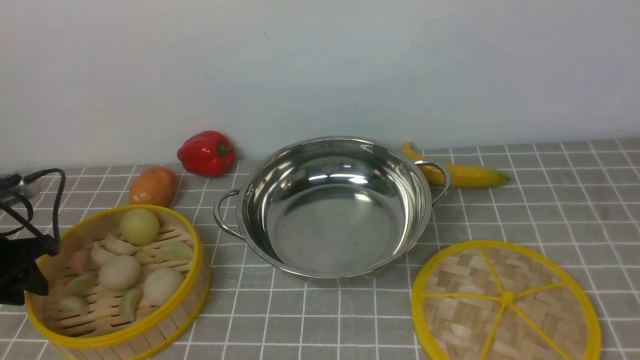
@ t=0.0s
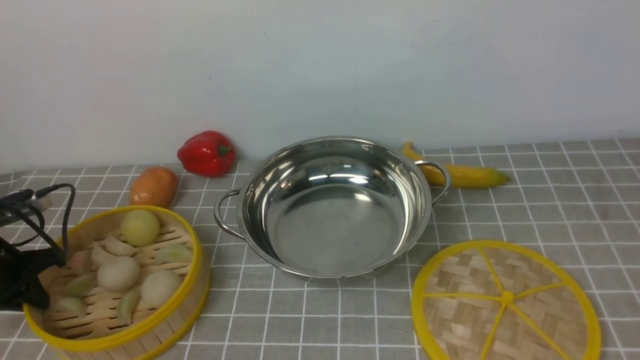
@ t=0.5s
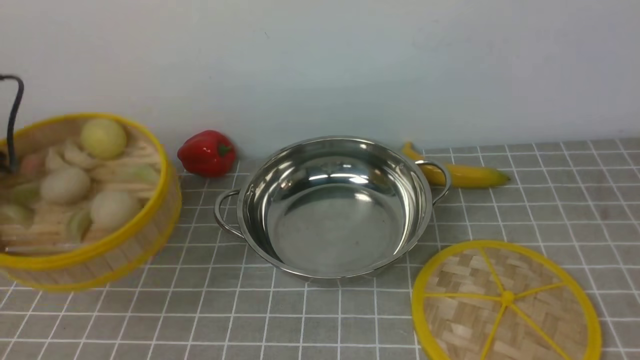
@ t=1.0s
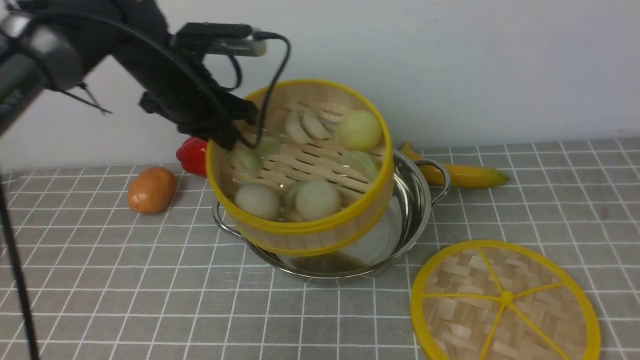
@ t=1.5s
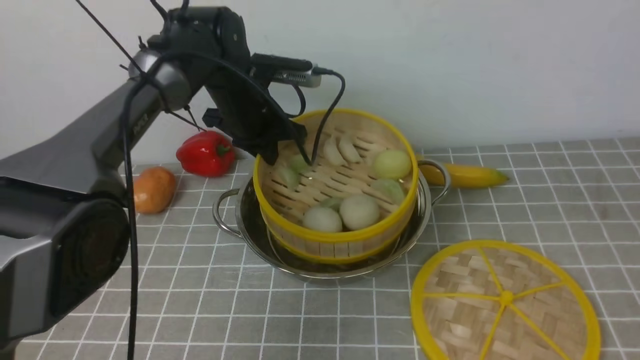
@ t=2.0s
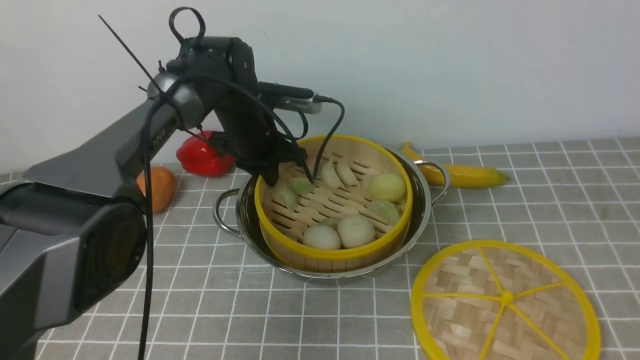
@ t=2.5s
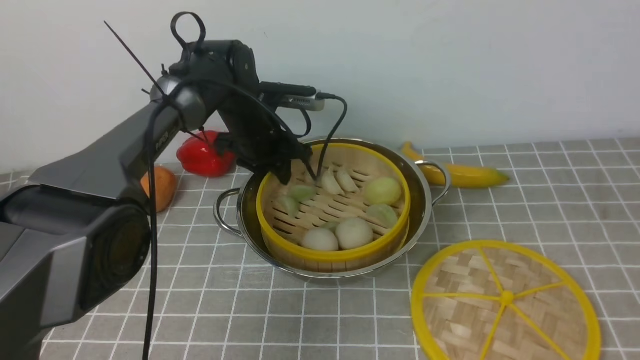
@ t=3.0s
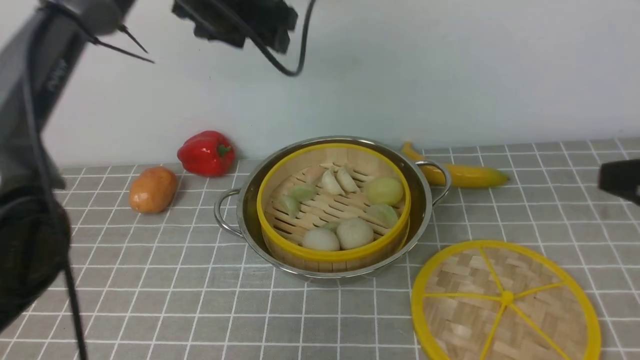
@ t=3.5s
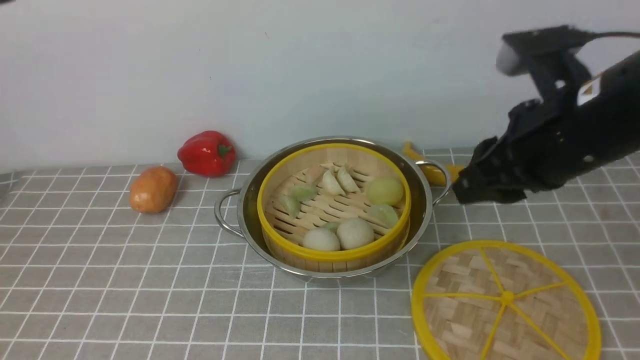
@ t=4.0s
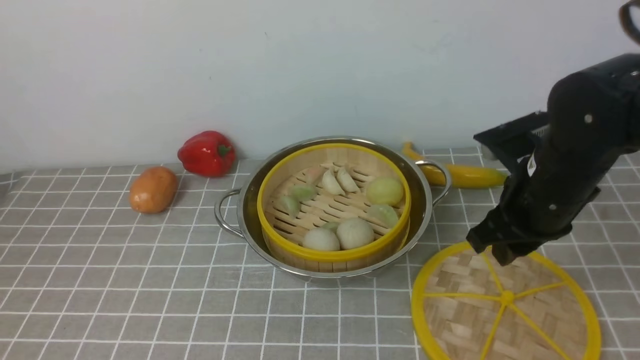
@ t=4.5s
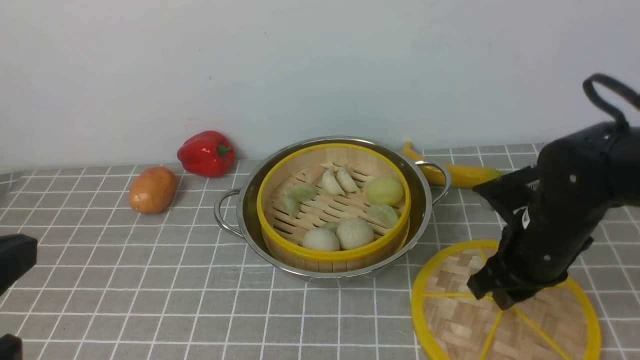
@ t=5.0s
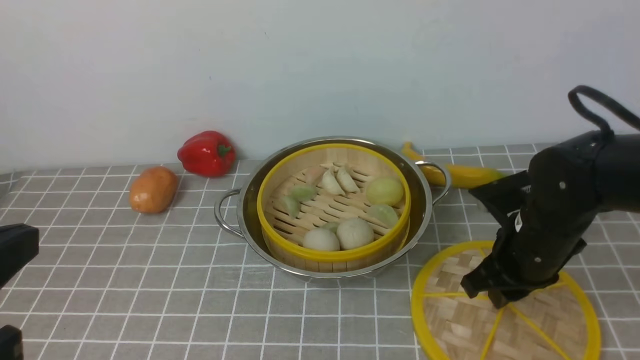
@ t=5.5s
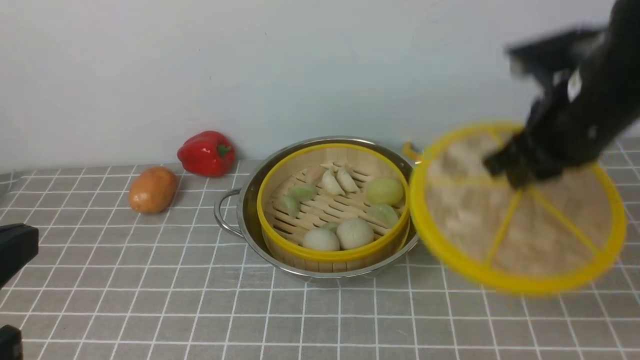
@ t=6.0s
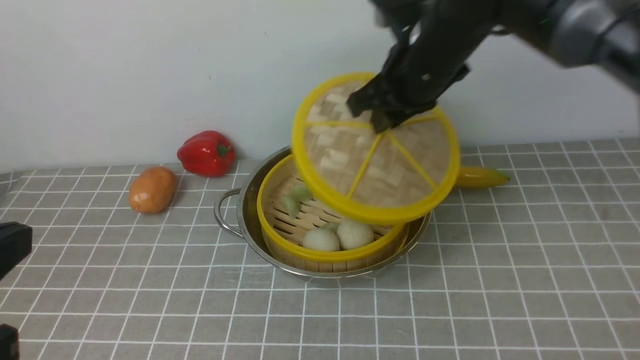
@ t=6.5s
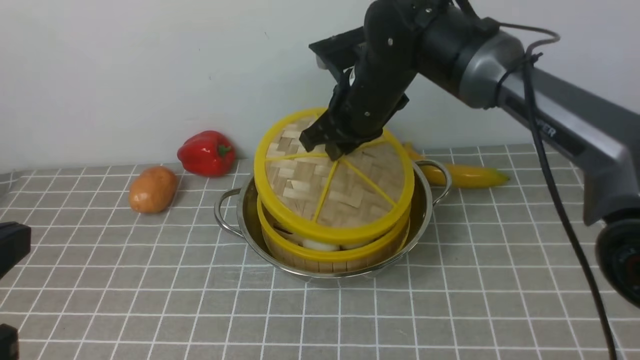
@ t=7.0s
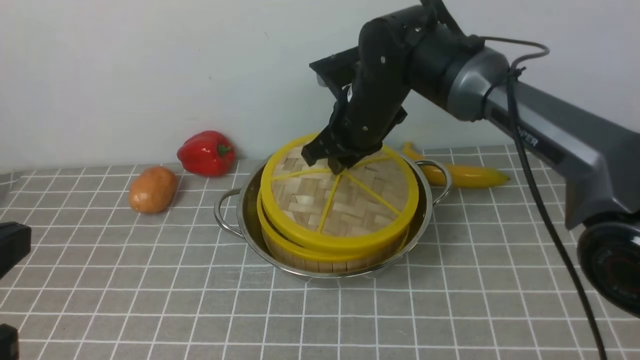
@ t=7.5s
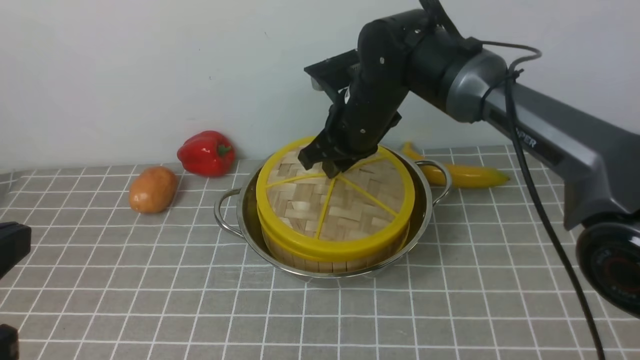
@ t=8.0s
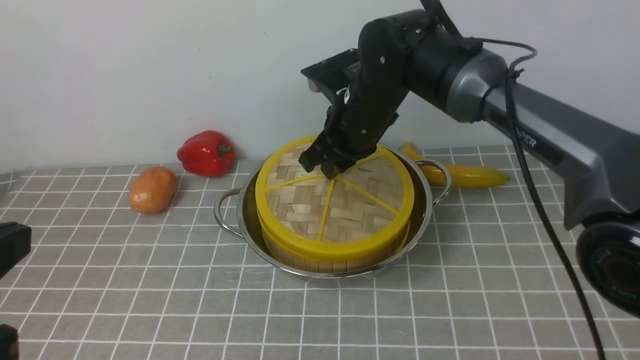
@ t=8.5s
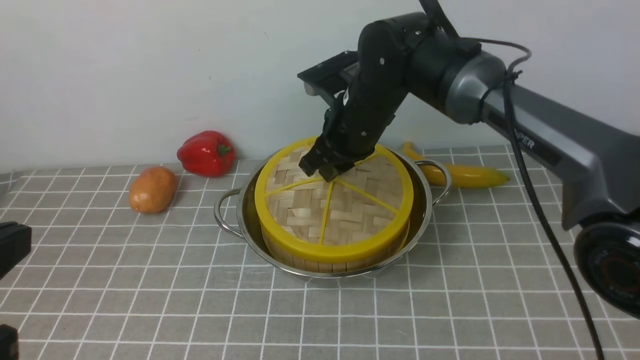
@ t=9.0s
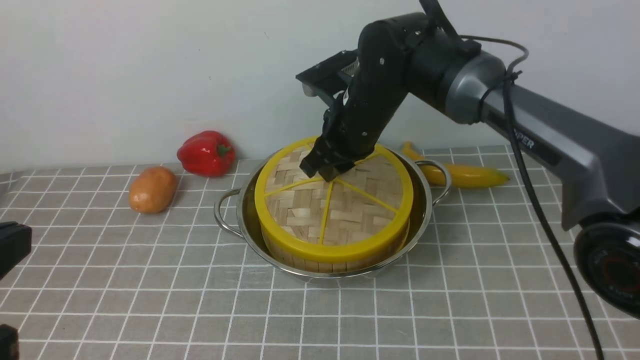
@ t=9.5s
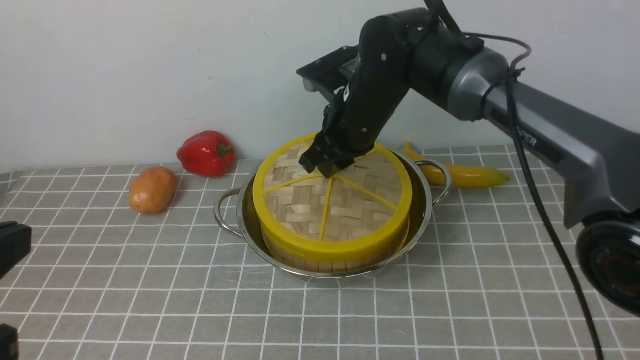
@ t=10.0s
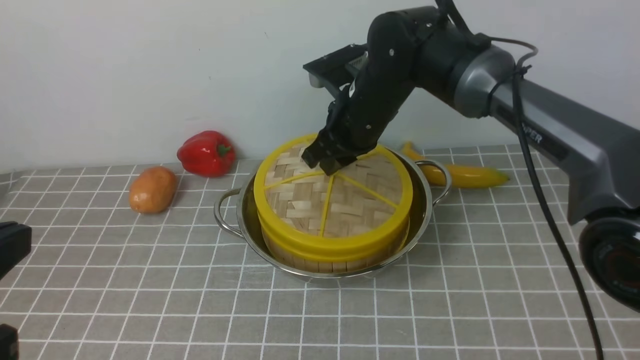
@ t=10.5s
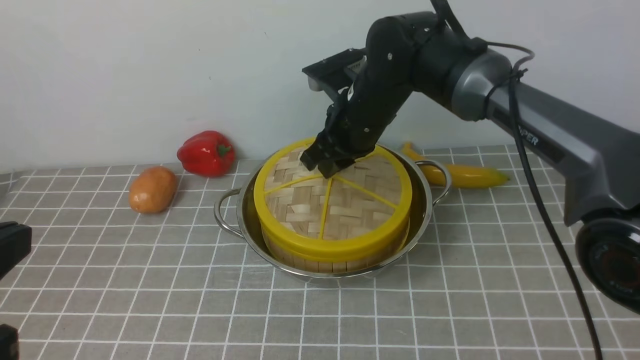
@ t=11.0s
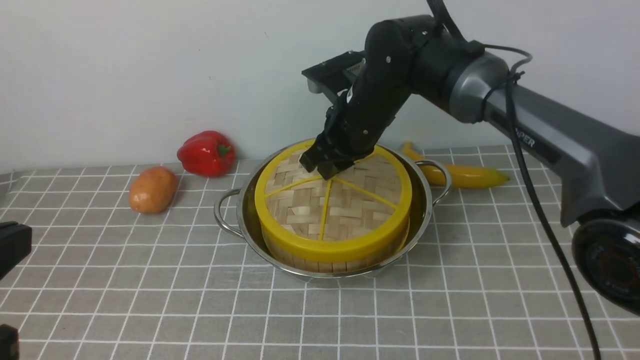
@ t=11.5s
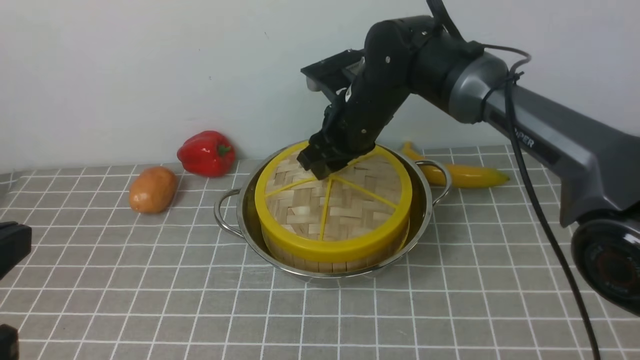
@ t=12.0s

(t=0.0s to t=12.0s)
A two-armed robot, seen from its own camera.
Task of the whole recording: place the steamer in the pot on the grey tablecloth, and put the lid on the steamer.
Step, t=1.0s - t=3.0s: use the left arm to put the steamer into the iron steamer pot in the middle.
Step, t=3.5s - t=5.5s: use the right arm to lift the lid of the steamer.
t=0.0s - t=2.0s: The left gripper shifts roughly 35 cm to the right and forward, and closes its fingers.
t=2.0s - t=4.0s: The right gripper heads forward and to the left, covering about 15 cm; the left gripper moves upward and backward, some 40 cm, and opens, then closes once more.
t=4.0s - t=6.0s: The left gripper shifts roughly 25 cm downward and backward, while the right gripper goes downward and returns, about 15 cm each way.
t=6.0s - t=8.0s: The right gripper shifts about 20 cm to the left, forward and downward.
t=8.0s - t=10.0s: The grippers make only small movements.
t=10.0s - t=12.0s: The right gripper opens.

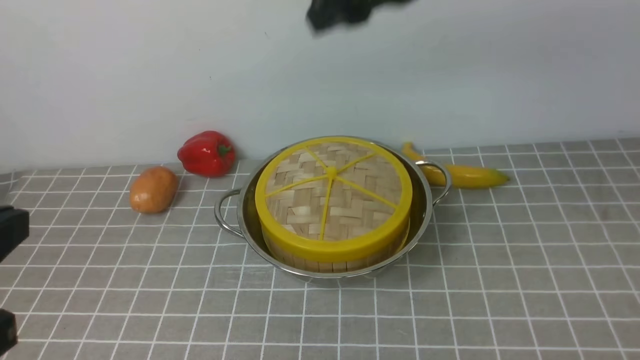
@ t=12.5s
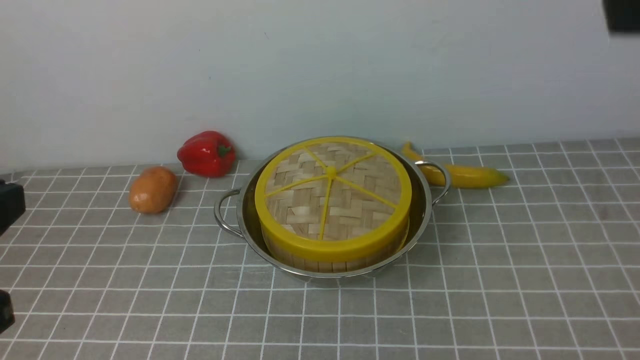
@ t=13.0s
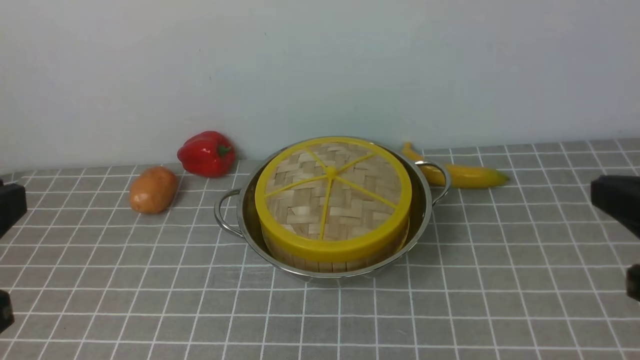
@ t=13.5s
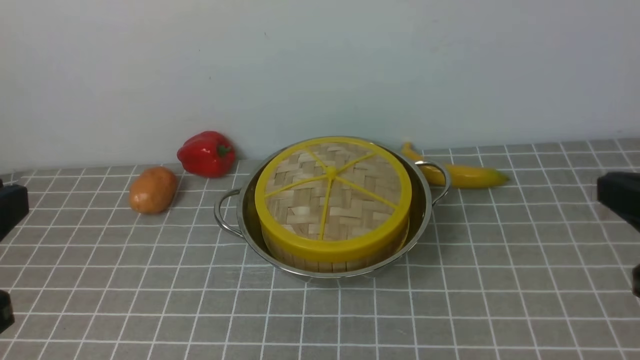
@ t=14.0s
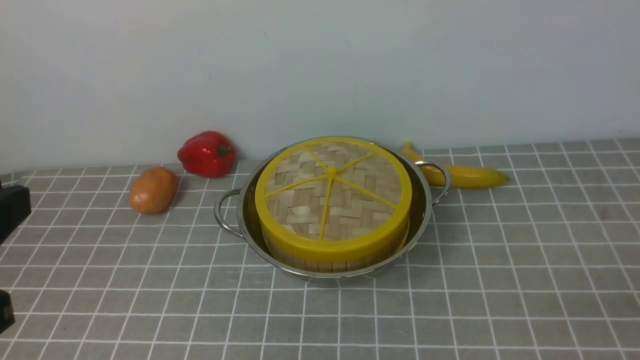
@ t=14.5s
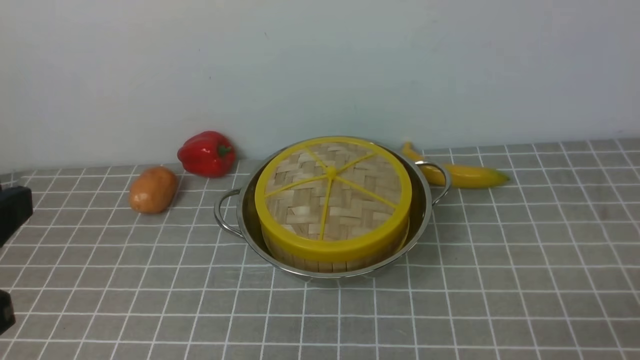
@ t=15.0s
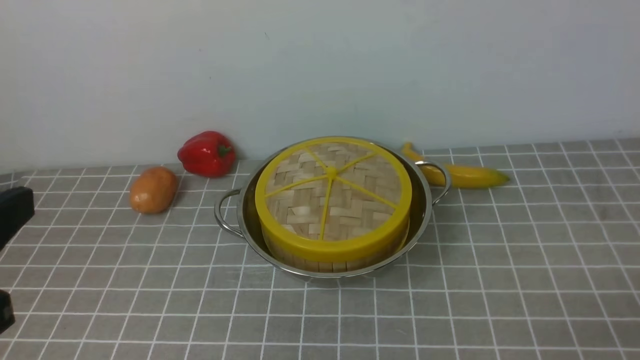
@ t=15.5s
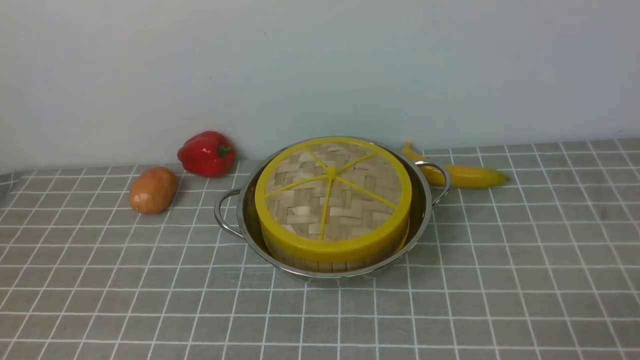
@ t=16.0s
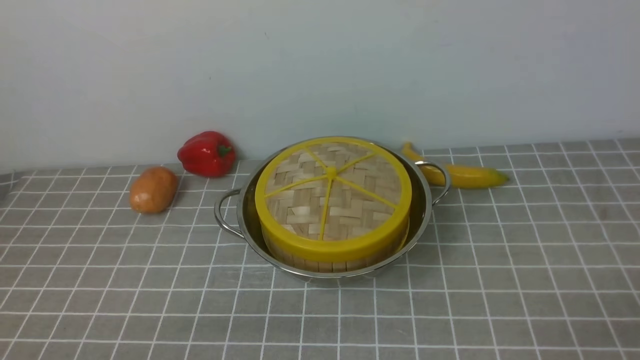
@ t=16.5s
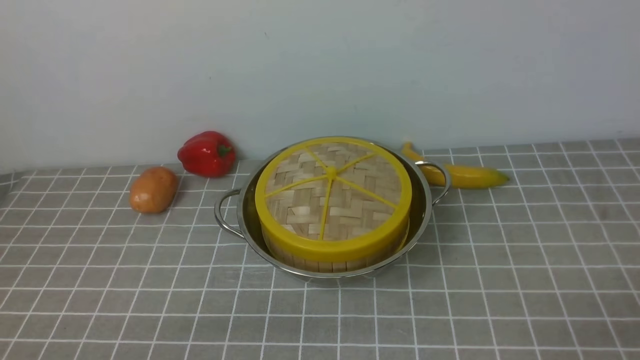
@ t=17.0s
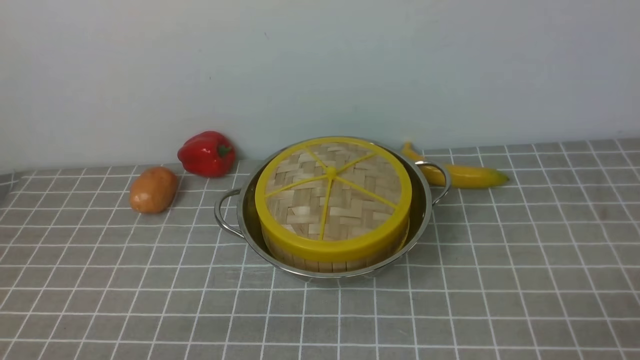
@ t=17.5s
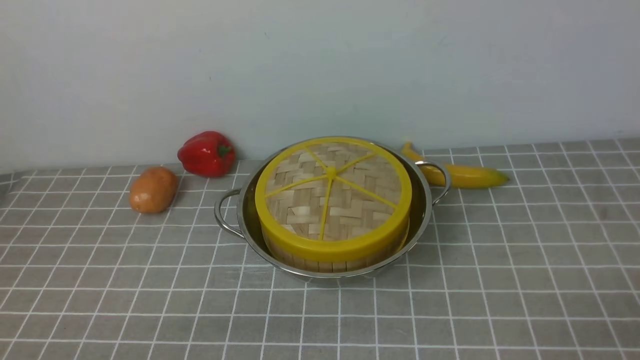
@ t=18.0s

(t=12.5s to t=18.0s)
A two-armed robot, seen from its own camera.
Task of the whole recording: place the steamer in the pot on the grey tablecloth, and put the lid on the steamer.
t=12.5s - t=14.5s: The right gripper goes roughly 40 cm backward, downward and to the right, and closes.
t=14.5s - t=16.0s: The left gripper goes approximately 10 cm downward.

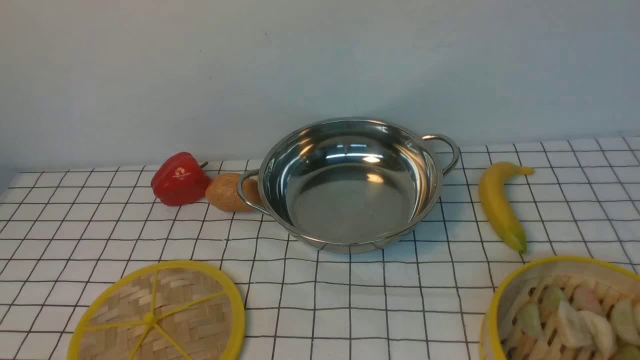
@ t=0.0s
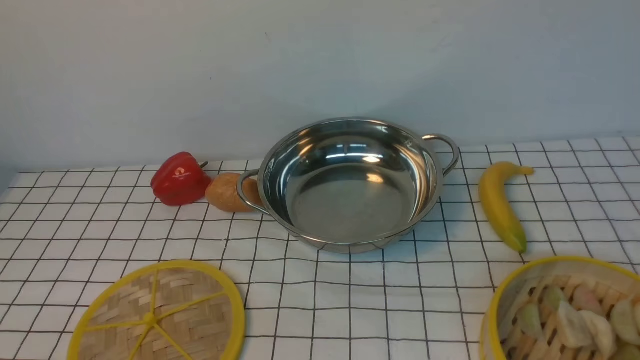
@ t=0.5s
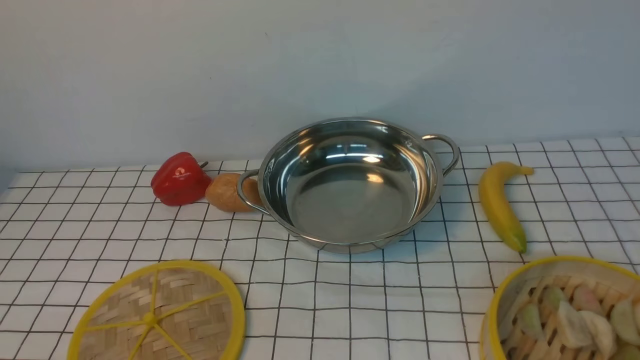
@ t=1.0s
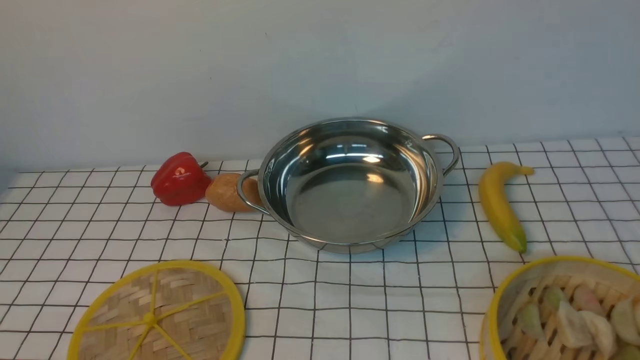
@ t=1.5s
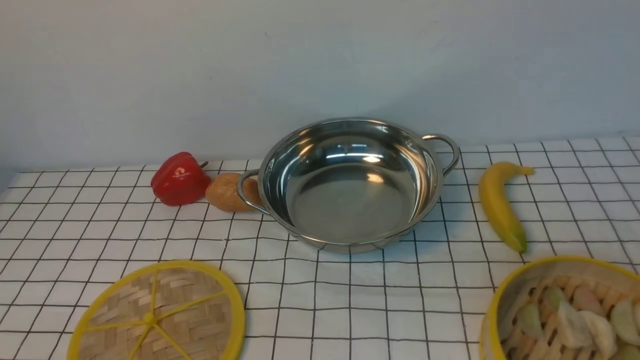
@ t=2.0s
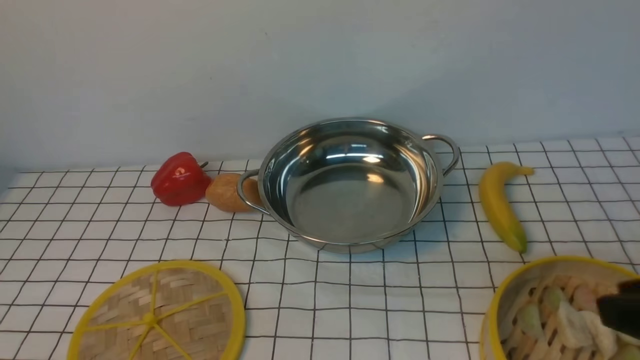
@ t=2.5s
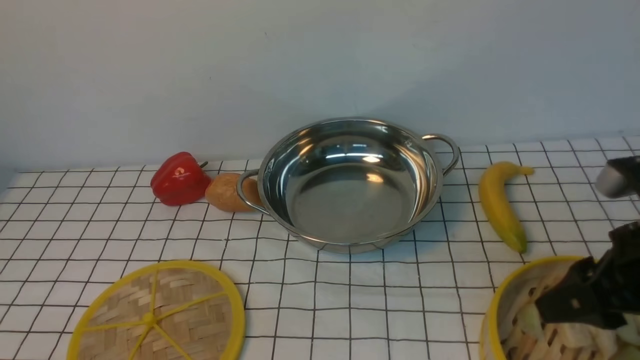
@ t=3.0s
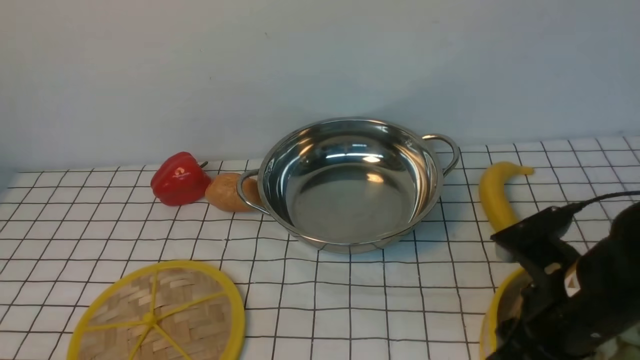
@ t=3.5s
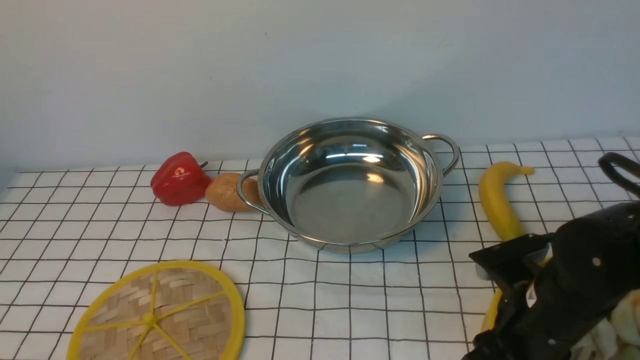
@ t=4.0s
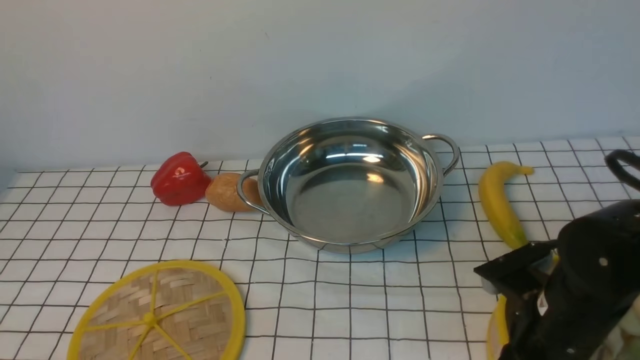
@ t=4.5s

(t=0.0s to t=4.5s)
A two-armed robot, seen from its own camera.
Task of the whole recording: place the steamer in the pot on the white tablecloth, and put the lid on the steamer.
t=2.0s - t=4.5s: The right gripper goes about 25 cm forward, downward and to the left, and closes.
